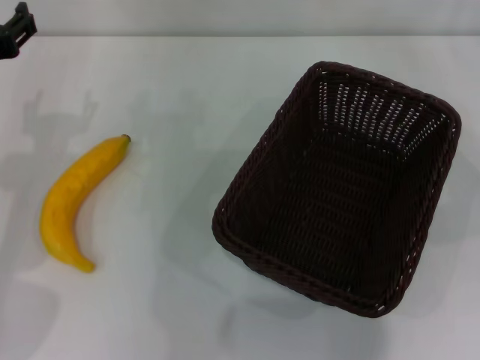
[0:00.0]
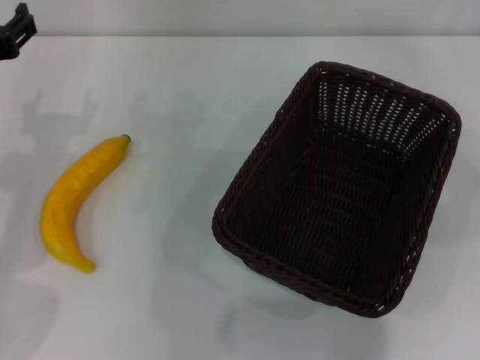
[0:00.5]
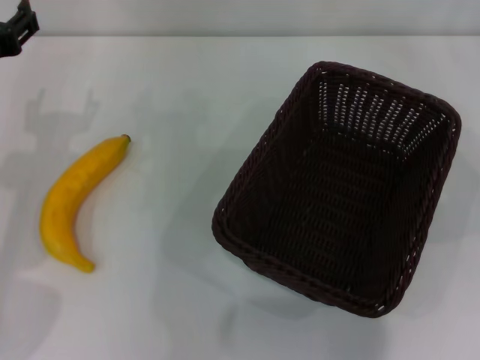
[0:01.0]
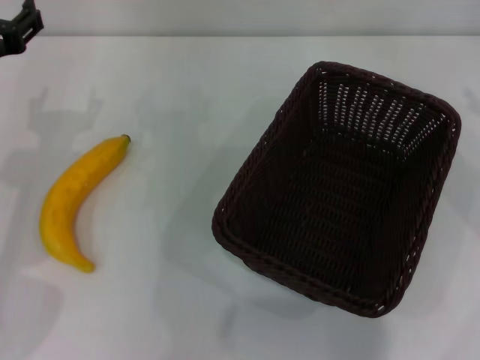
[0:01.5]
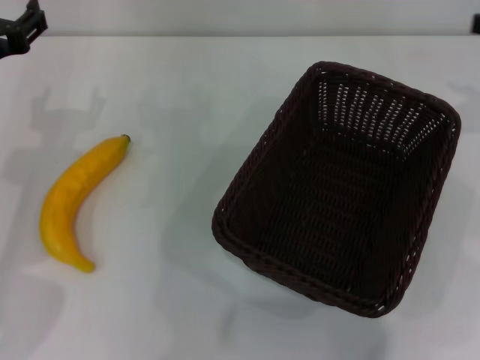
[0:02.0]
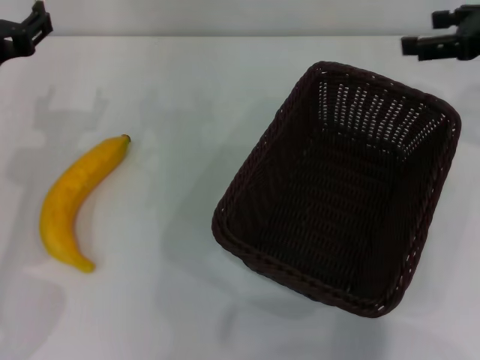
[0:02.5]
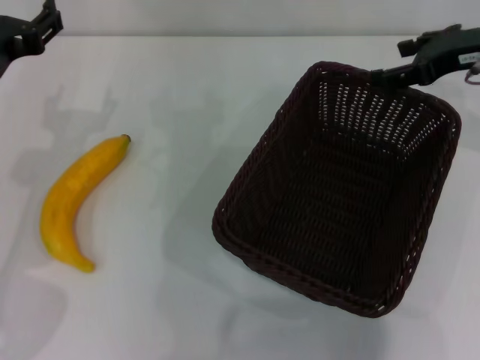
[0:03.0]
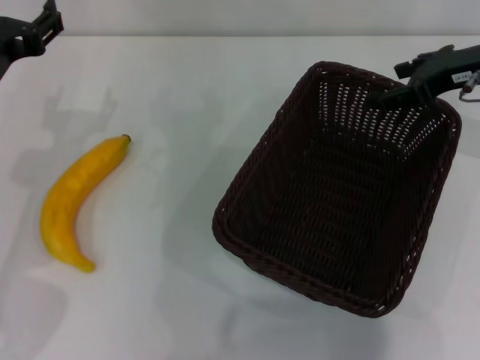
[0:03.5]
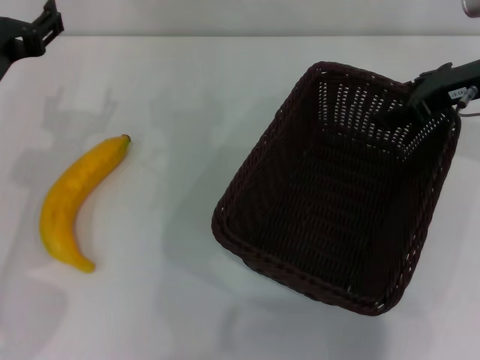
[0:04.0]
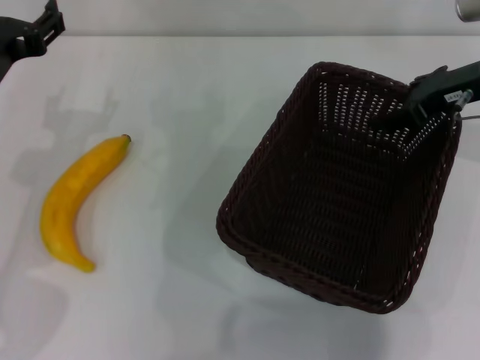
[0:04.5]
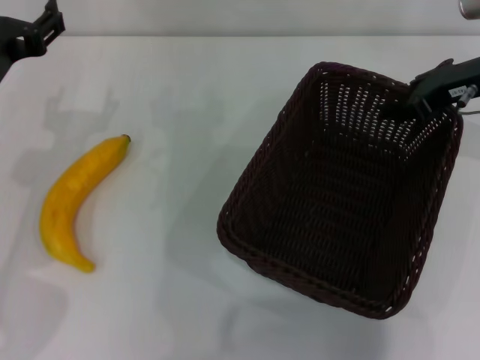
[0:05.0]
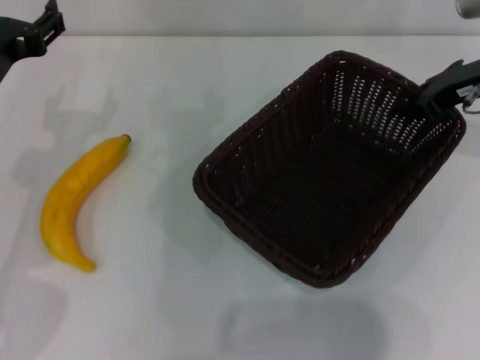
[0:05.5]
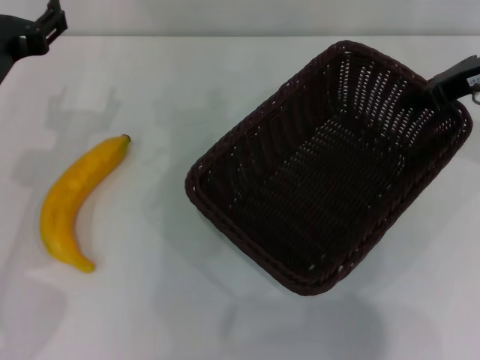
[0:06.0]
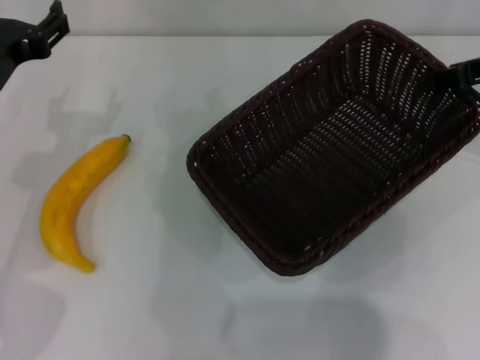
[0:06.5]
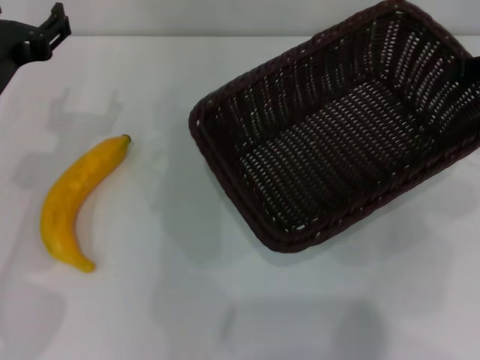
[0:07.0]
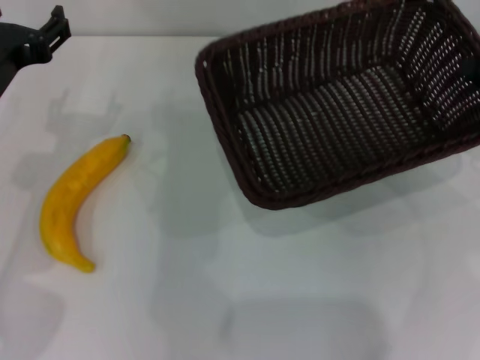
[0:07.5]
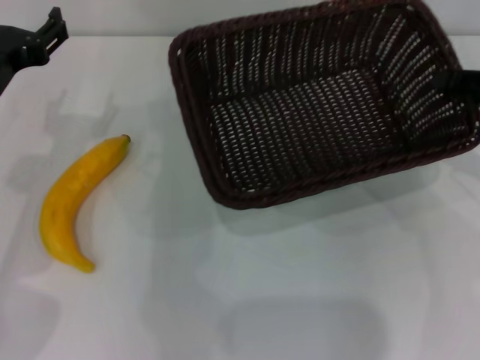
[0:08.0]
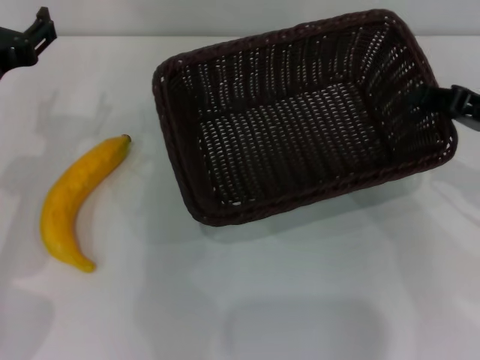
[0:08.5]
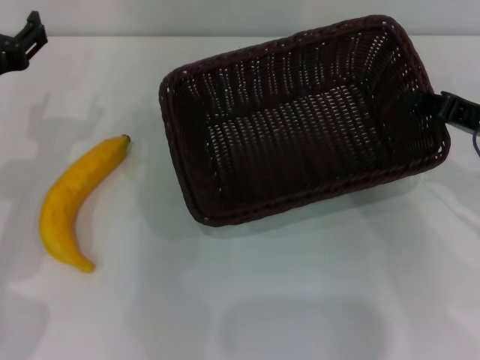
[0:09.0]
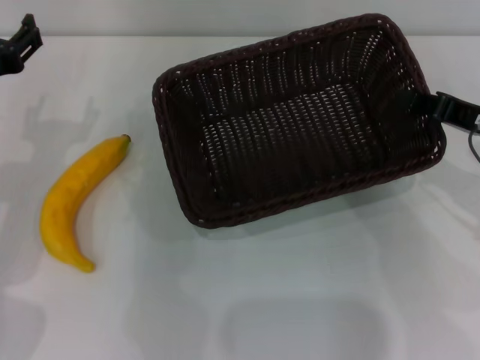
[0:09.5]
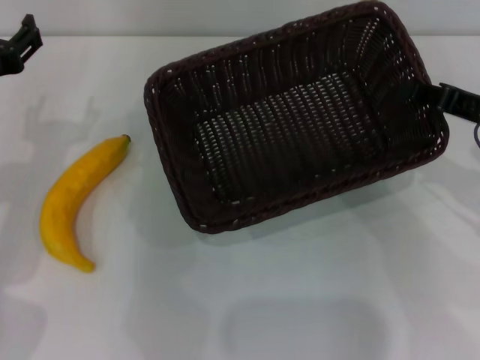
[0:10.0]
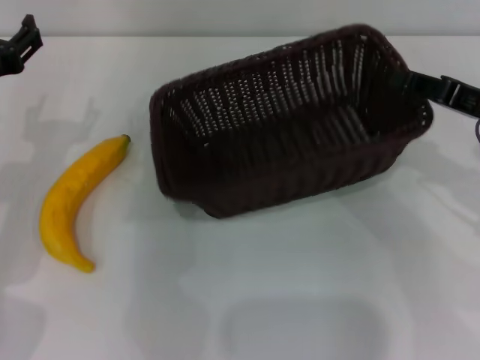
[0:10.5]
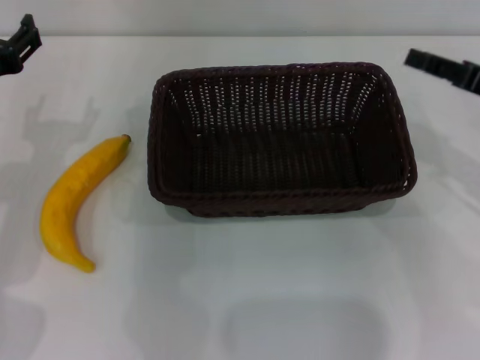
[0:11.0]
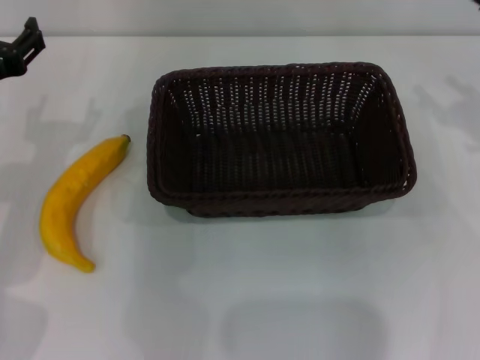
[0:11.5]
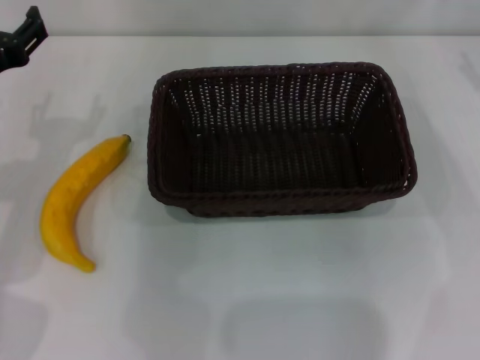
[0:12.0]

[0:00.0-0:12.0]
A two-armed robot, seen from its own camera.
Step, 0:00.0 to 0:04.5: Pick up the dark basket with the right gripper.
Step, 0:05.0 to 0:10.5: Place the dark basket in the center of view with the right gripper.
0:02.0 to 0:04.0: The right gripper moves to the left and forward, some 10 cm.
0:04.0 to 0:06.0: The right gripper closes.
0:06.0 to 0:08.0: The right gripper goes some 10 cm backward and to the right.
0:08.0 to 0:10.0: The grippers make only small movements.
0:10.0 to 0:12.0: The right gripper goes some 10 cm to the right and forward, and opens its fingers.

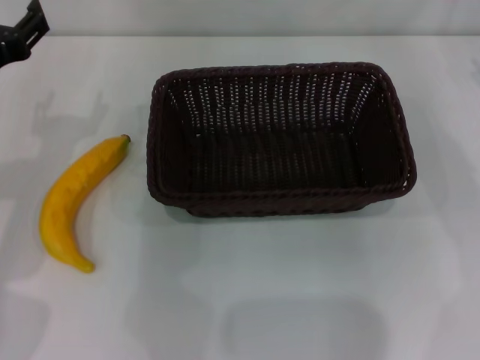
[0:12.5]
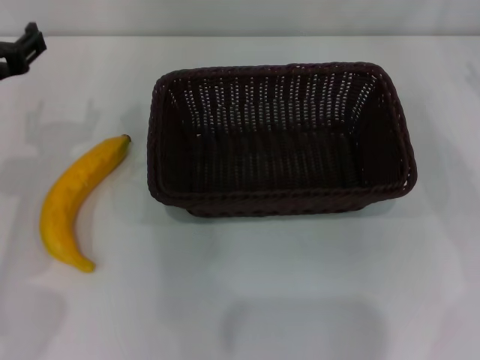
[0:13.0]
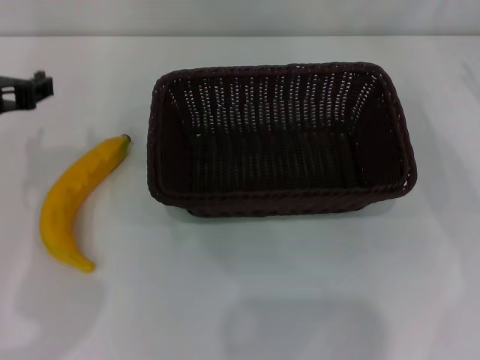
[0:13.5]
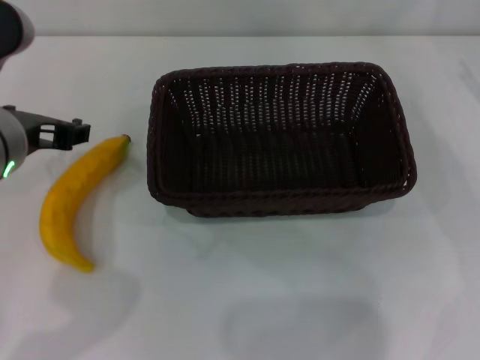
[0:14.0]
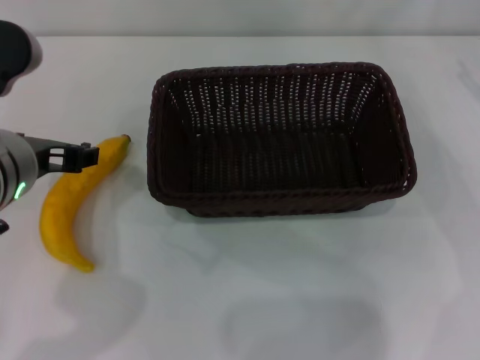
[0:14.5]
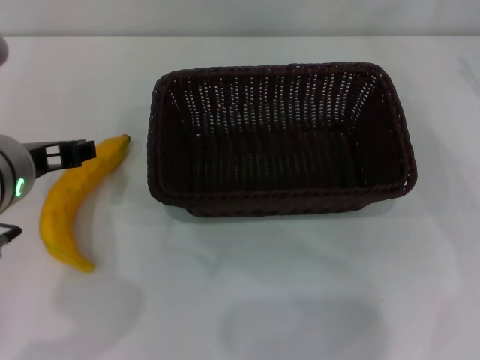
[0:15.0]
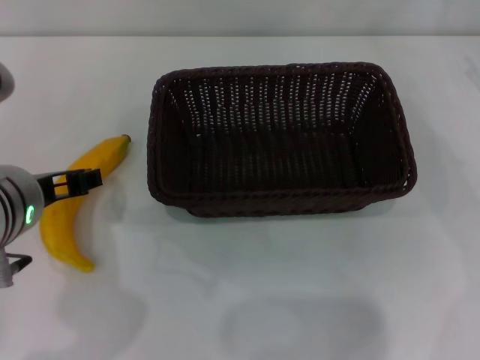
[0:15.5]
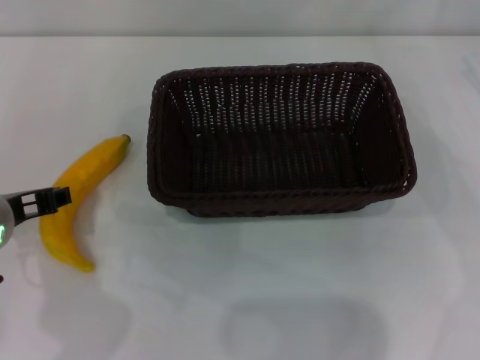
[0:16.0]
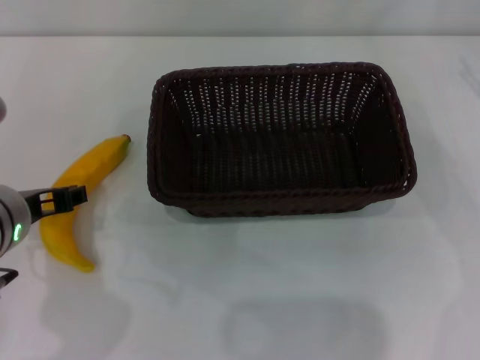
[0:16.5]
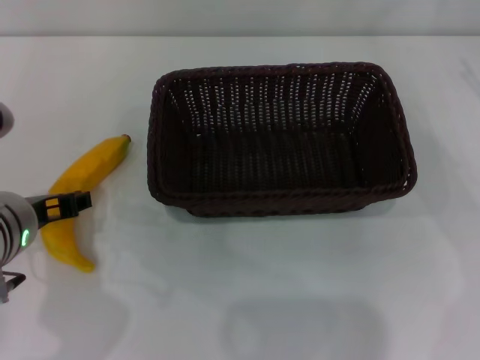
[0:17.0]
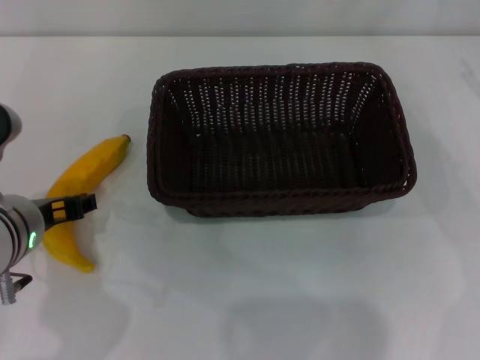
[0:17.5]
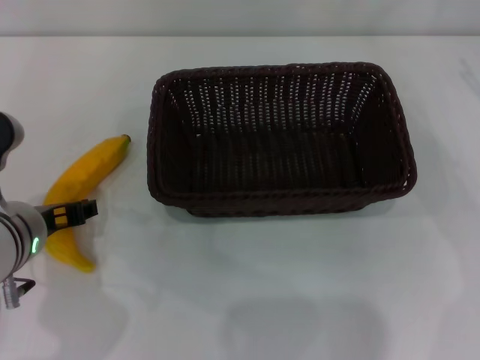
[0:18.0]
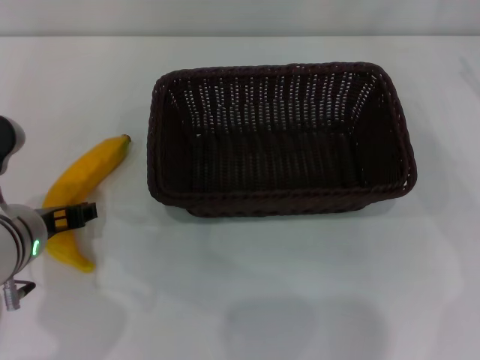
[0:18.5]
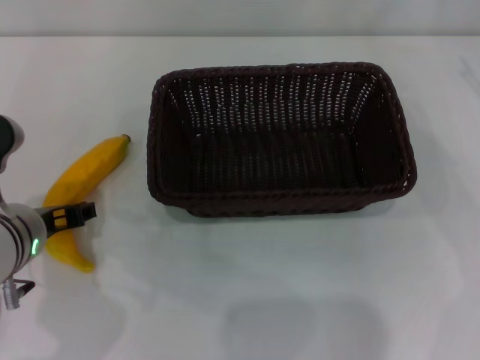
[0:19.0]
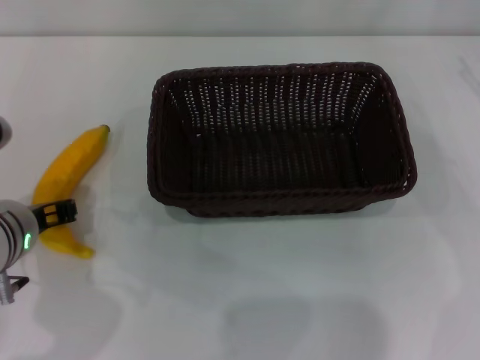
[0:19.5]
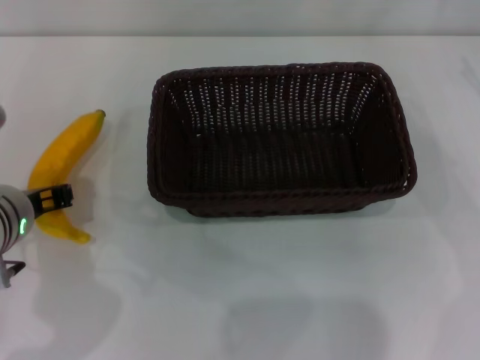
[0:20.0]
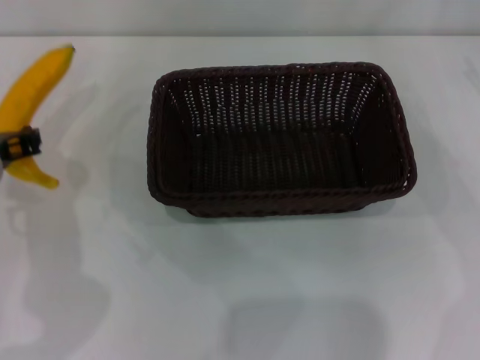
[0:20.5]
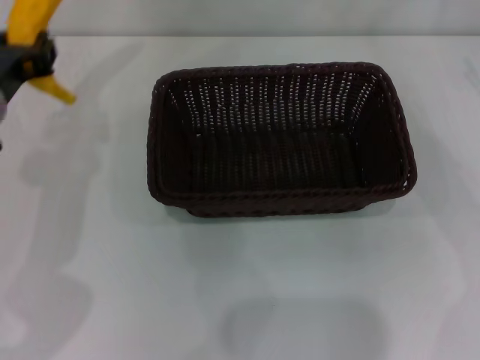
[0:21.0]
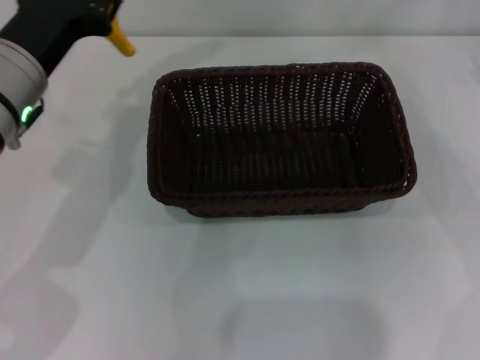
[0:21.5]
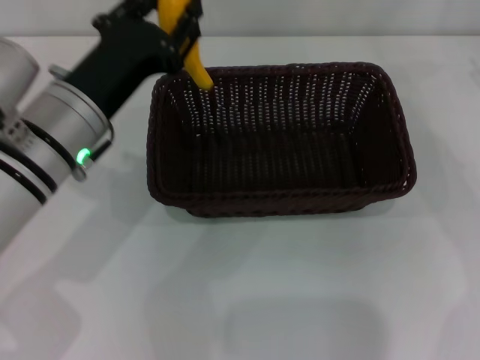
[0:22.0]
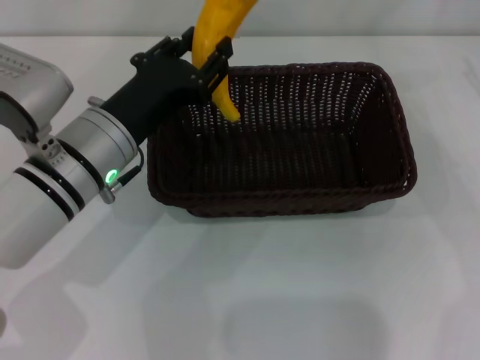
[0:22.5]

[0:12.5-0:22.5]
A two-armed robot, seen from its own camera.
Step, 0:12.5 to 0:20.0: Pick up the banana with the left gripper.
0:12.5 to 0:14.5: The left gripper goes roughly 10 cm to the right.
0:14.5 to 0:16.5: There are only small adjustments of the grippers.
0:16.5 to 0:18.5: There are only small adjustments of the grippers.
0:18.5 to 0:20.5: The left gripper moves about 5 cm, and closes its fingers.
0:20.5 to 0:22.5: The left gripper is displaced to the right by roughly 5 cm.

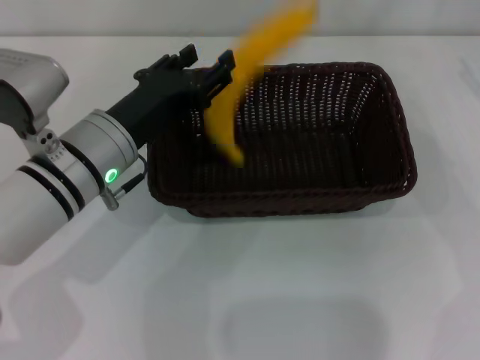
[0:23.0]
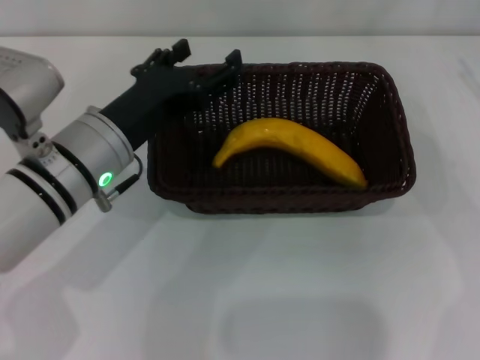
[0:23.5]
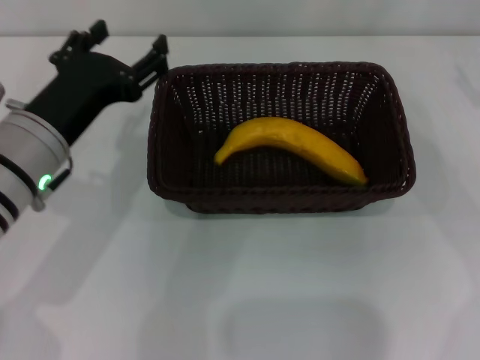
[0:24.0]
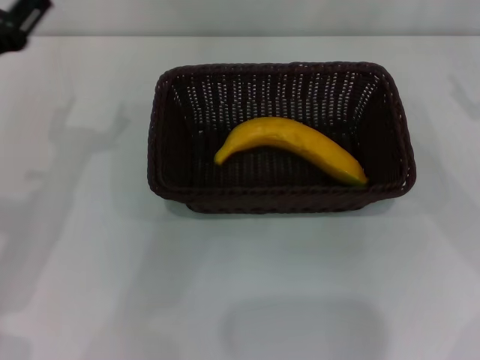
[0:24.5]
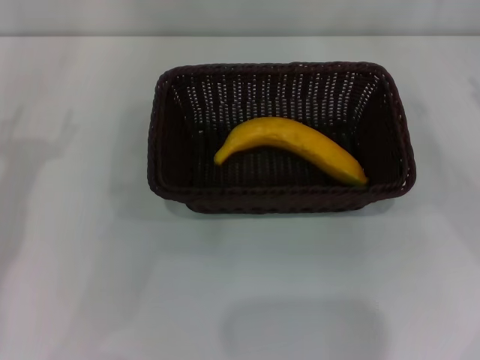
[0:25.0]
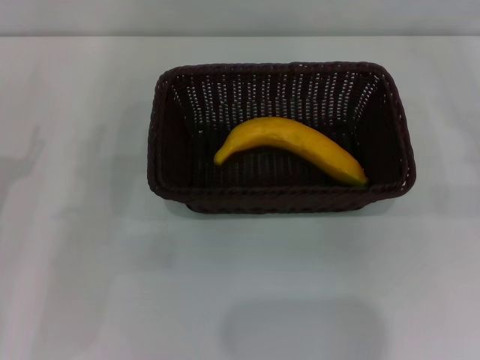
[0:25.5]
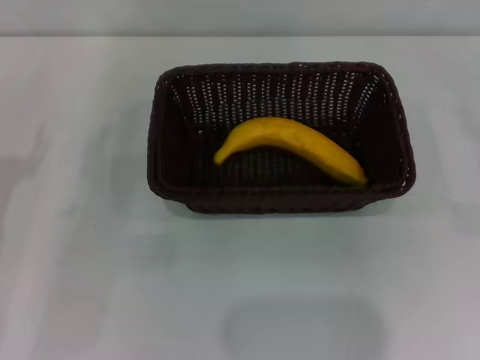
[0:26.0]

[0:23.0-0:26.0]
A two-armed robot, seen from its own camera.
0:23.0 to 0:24.5: The left gripper goes some 10 cm to the left, and opens up.
0:24.5 to 0:26.0: The left gripper moves to the left, approximately 5 cm.
